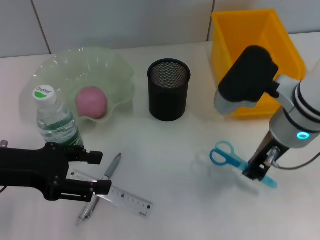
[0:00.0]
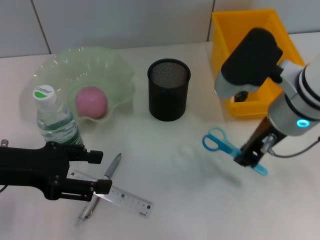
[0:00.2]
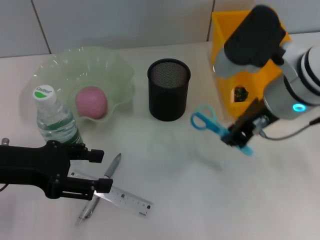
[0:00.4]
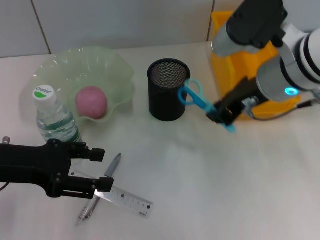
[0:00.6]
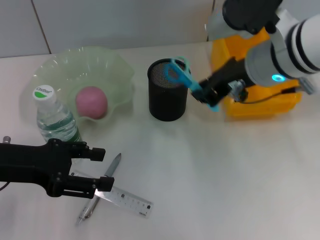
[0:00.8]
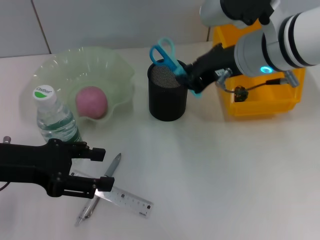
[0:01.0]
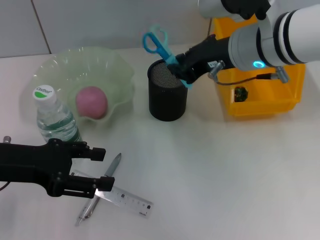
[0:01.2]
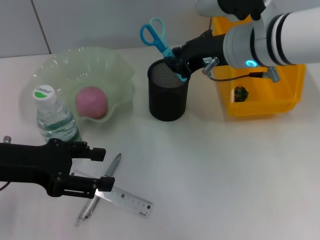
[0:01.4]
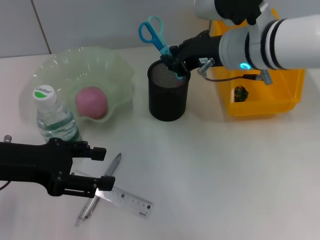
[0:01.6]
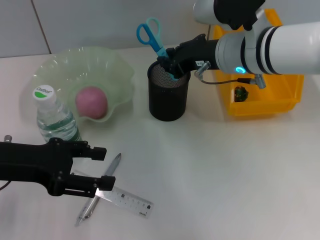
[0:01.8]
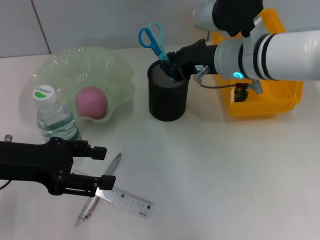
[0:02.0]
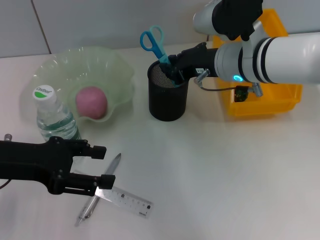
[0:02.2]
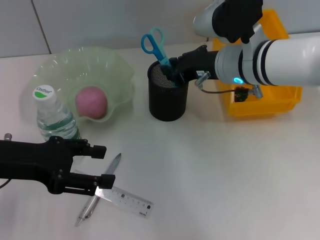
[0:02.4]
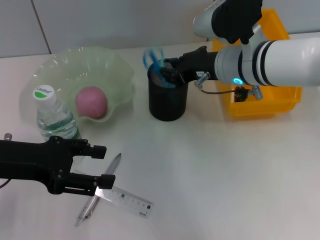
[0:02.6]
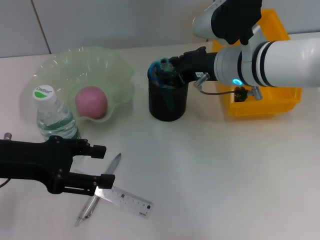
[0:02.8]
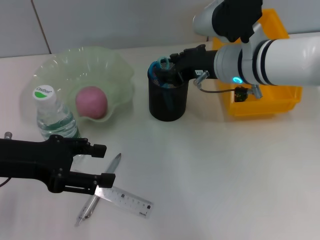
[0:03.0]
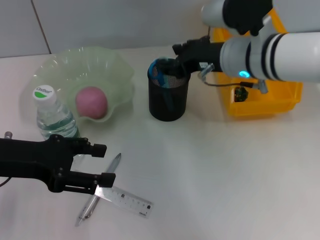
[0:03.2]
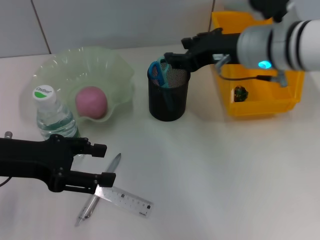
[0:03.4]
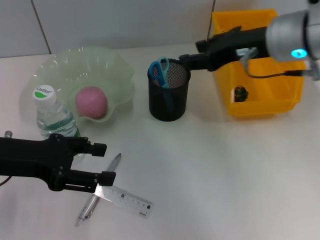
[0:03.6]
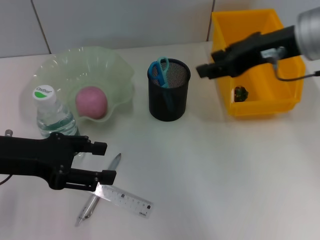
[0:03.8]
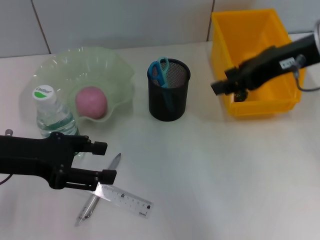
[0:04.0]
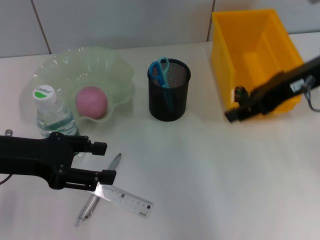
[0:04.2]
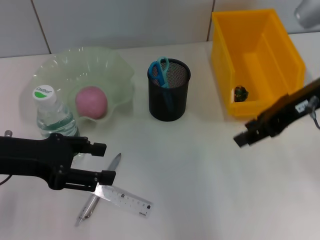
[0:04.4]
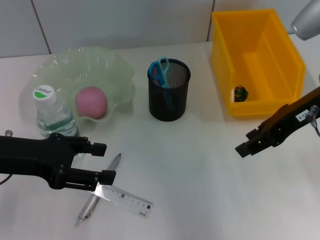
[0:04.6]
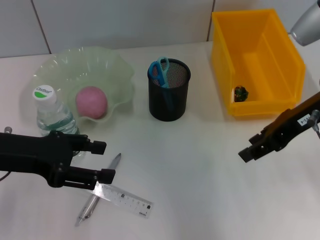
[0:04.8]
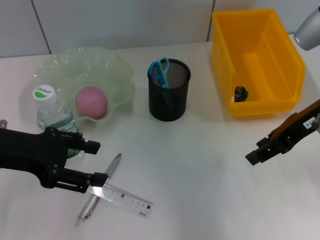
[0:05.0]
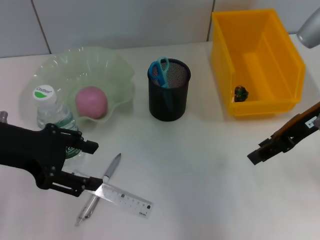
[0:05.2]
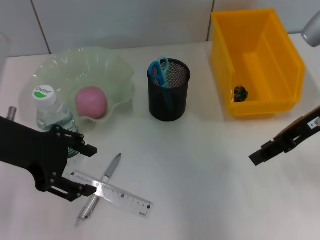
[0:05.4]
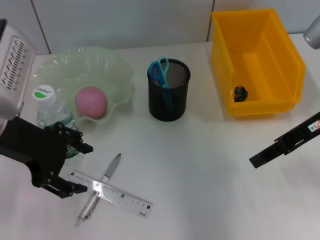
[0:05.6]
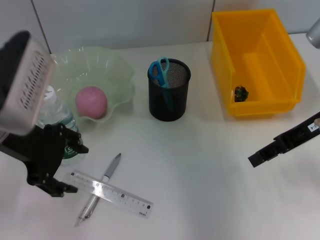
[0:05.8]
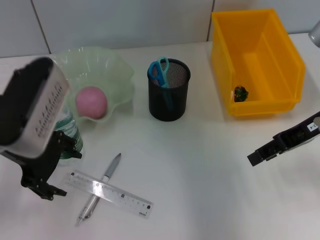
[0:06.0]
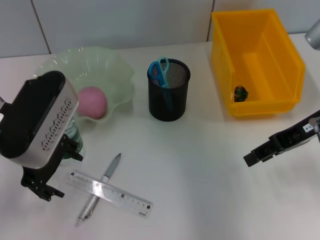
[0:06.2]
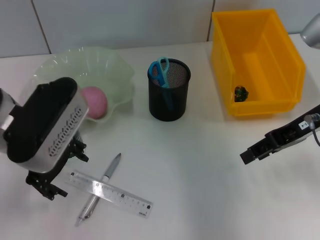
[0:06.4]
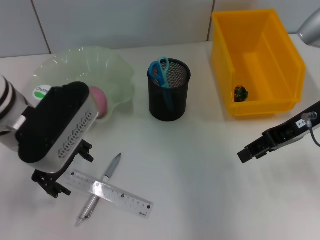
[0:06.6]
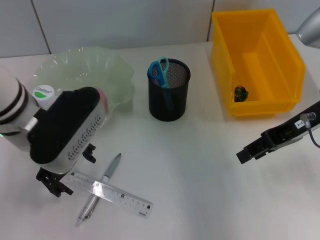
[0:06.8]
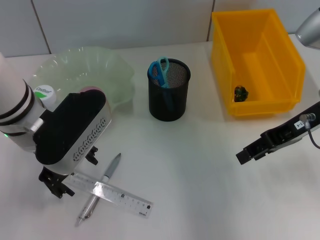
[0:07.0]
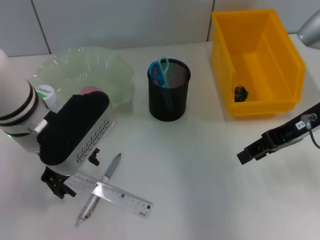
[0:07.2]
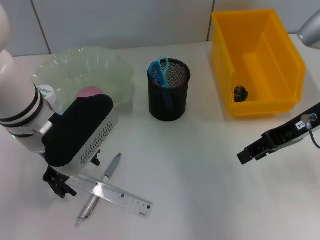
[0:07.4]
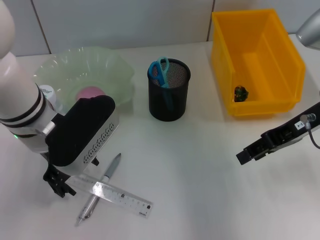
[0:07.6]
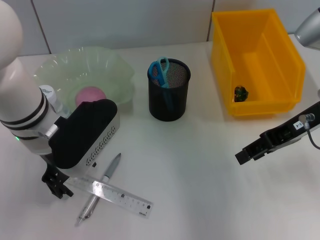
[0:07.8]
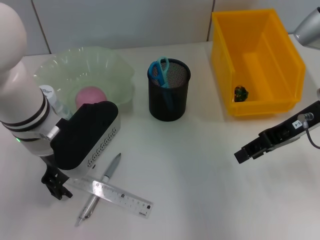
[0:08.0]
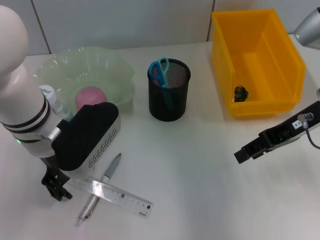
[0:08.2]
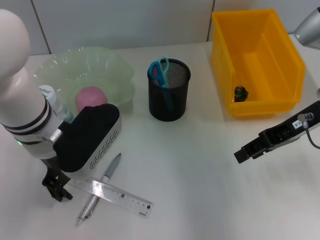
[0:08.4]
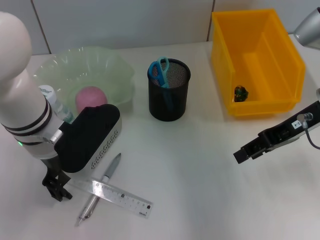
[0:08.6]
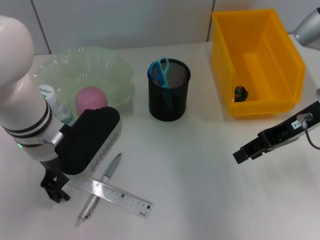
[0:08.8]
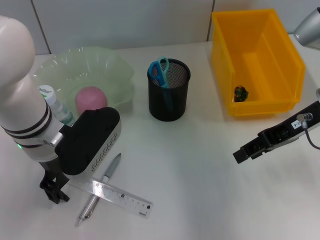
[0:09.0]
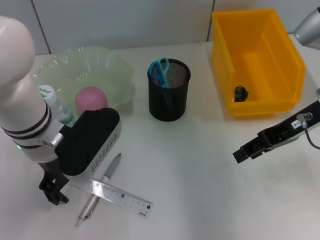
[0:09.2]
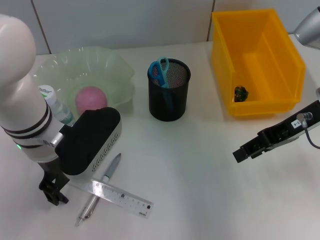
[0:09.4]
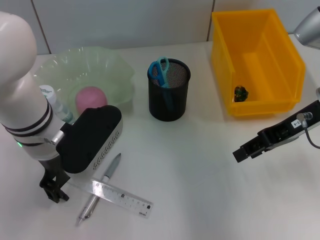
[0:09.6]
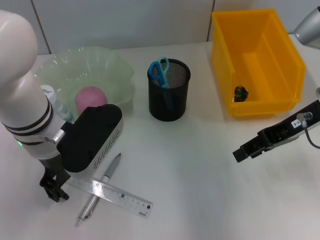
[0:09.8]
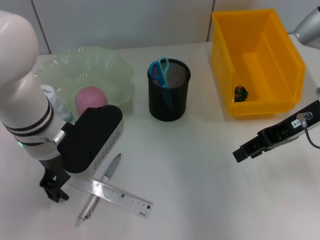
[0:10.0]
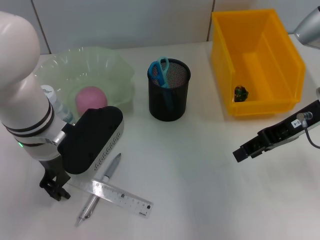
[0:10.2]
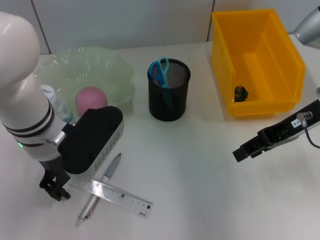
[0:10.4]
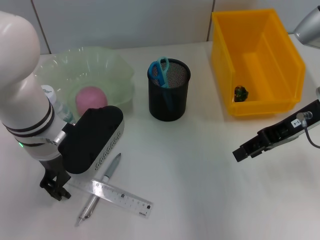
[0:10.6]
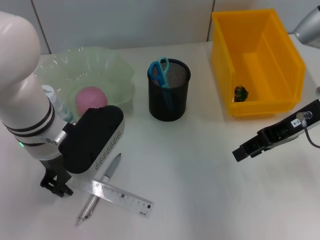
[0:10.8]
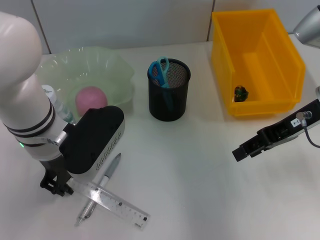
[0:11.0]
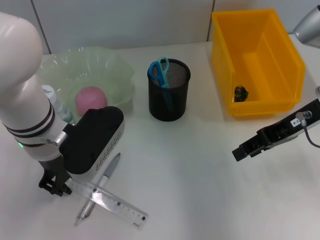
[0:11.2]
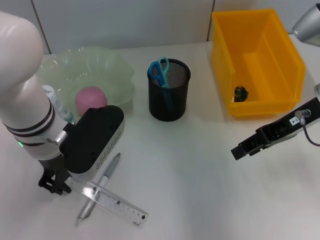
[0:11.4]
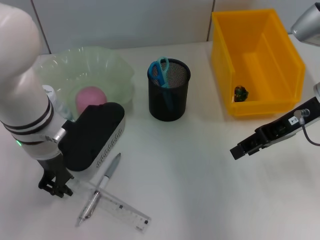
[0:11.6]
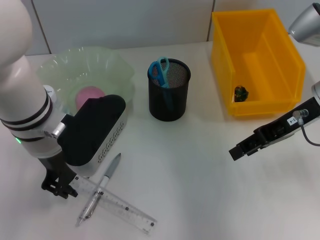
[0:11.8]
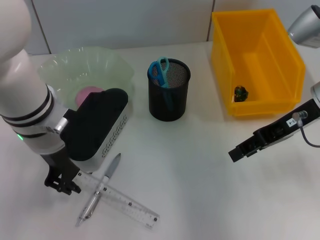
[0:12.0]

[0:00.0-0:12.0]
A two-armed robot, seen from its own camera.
Step, 0:00.8 to 0:03.4: Place the blue scissors into the pen holder with the right hand.
0:00.0 to 0:01.6: The right gripper goes approximately 5 cm forward.
0:01.6 to 0:03.0: The grippers stay close to where they were, moving slightly.
0:03.0 to 0:04.4: The right gripper is displaced to the right, upward and backward by about 15 cm.
0:04.4 to 0:06.0: The left gripper heads to the right, covering some 5 cm, while the right gripper changes place by roughly 5 cm.
0:06.0 to 0:07.6: The left gripper is displaced to the right by some 5 cm.
0:07.6 to 0:09.0: The grippers make only small movements.
0:09.0 to 0:10.4: Both grippers stay put.
0:10.4 to 0:12.0: The left gripper closes its fingers.

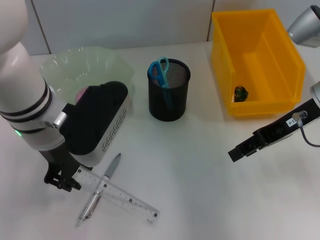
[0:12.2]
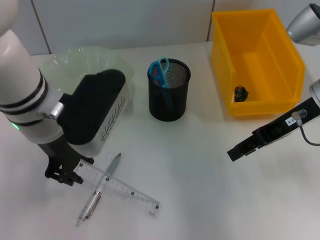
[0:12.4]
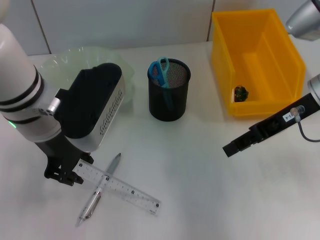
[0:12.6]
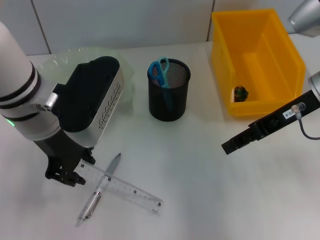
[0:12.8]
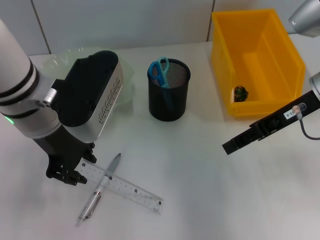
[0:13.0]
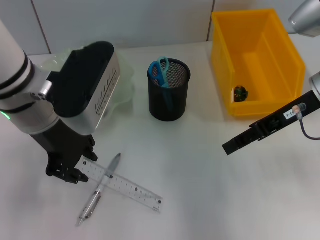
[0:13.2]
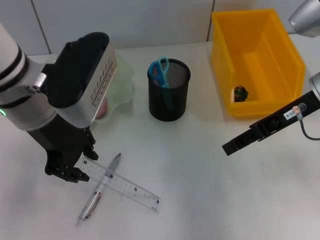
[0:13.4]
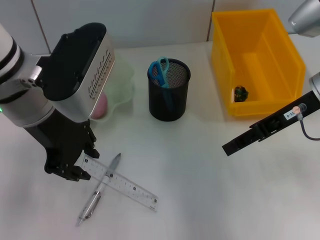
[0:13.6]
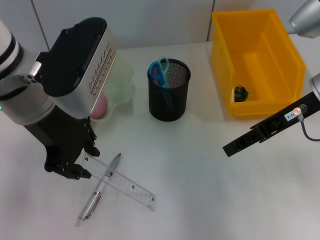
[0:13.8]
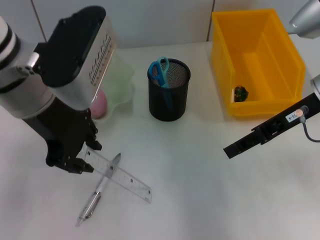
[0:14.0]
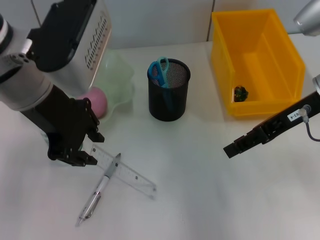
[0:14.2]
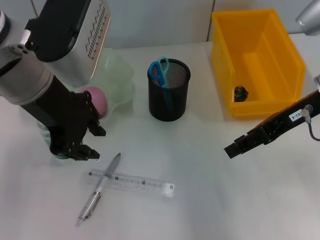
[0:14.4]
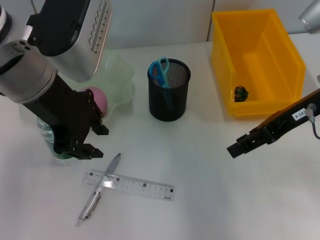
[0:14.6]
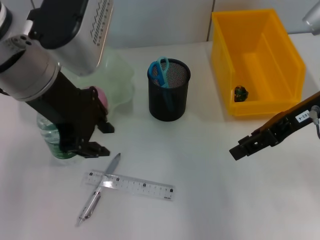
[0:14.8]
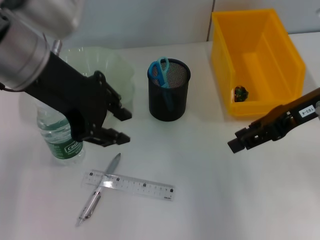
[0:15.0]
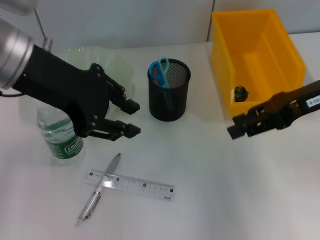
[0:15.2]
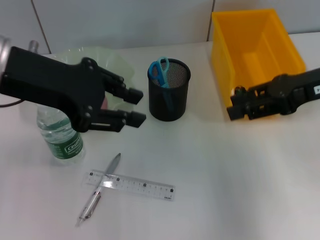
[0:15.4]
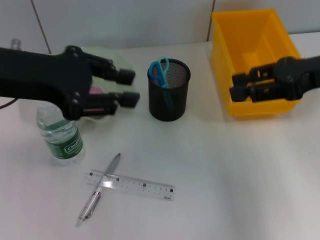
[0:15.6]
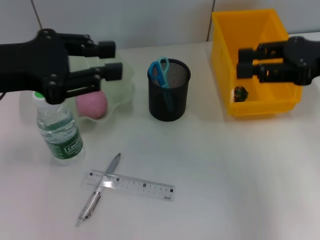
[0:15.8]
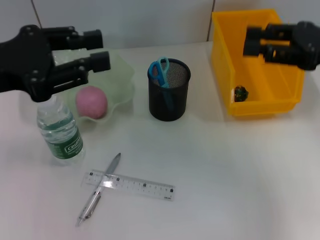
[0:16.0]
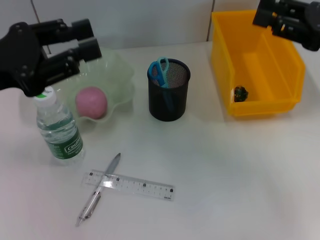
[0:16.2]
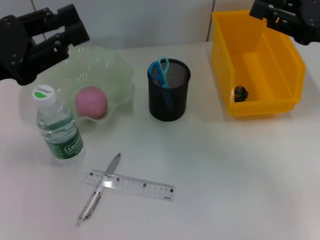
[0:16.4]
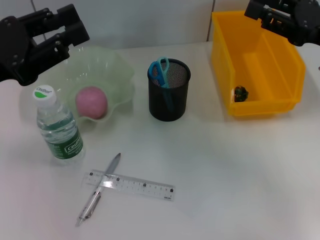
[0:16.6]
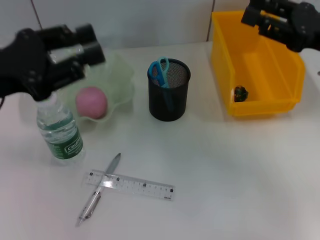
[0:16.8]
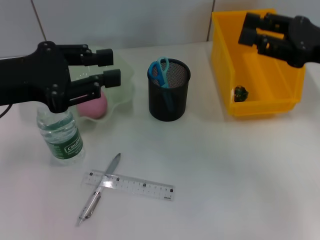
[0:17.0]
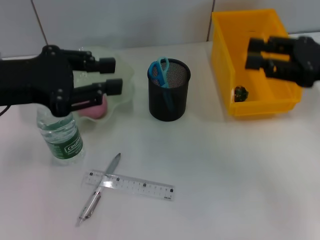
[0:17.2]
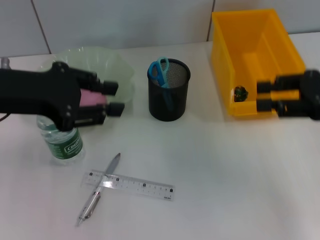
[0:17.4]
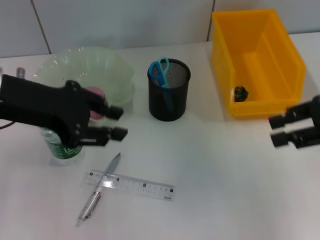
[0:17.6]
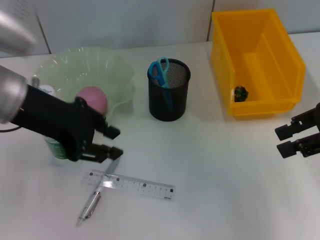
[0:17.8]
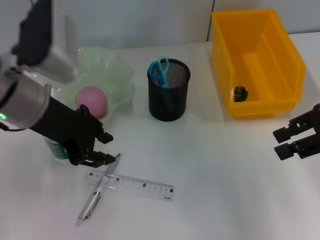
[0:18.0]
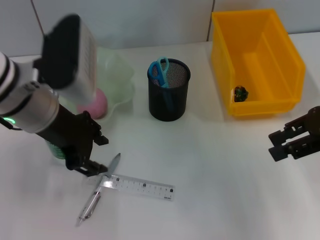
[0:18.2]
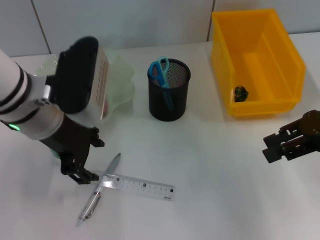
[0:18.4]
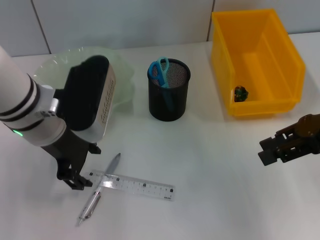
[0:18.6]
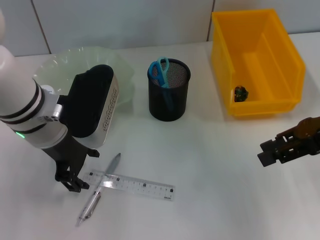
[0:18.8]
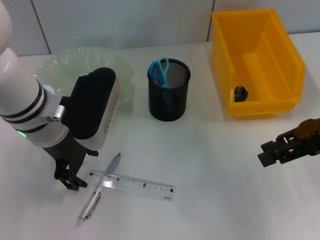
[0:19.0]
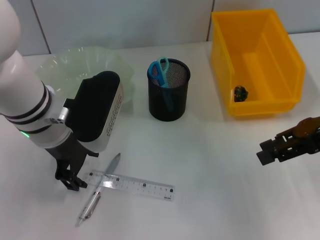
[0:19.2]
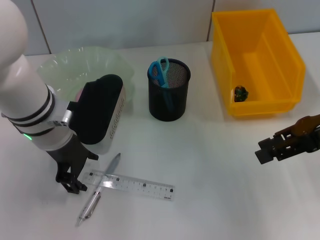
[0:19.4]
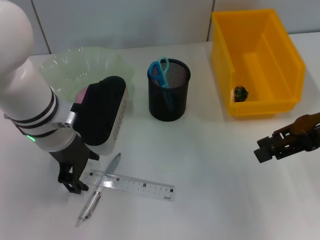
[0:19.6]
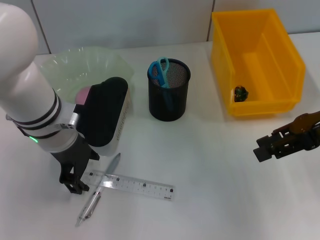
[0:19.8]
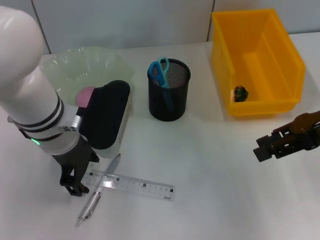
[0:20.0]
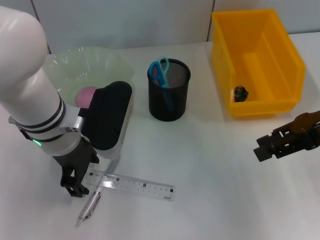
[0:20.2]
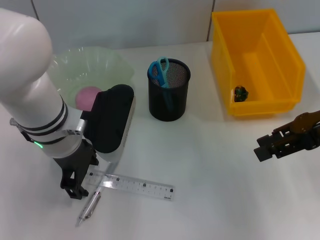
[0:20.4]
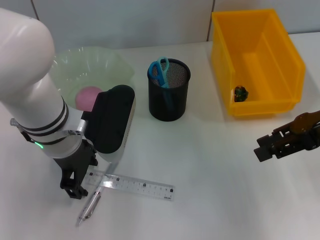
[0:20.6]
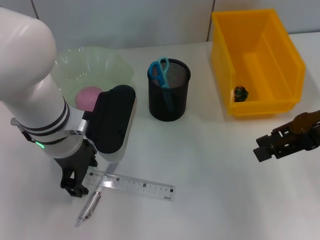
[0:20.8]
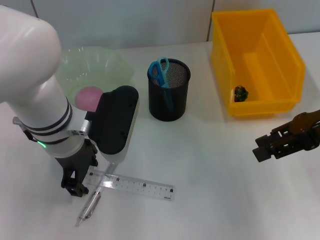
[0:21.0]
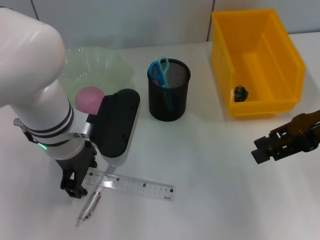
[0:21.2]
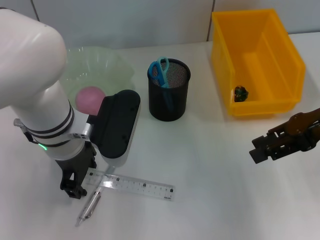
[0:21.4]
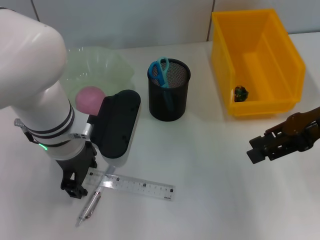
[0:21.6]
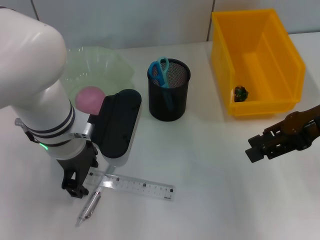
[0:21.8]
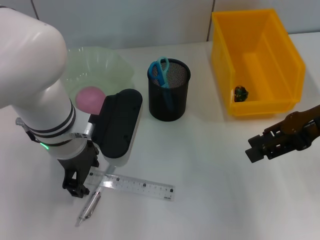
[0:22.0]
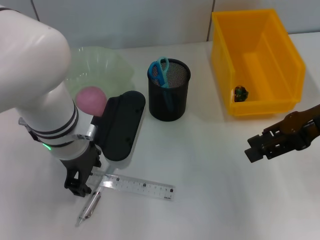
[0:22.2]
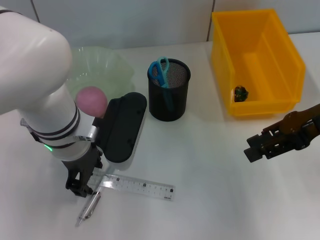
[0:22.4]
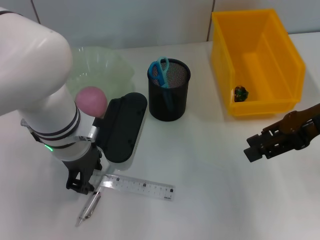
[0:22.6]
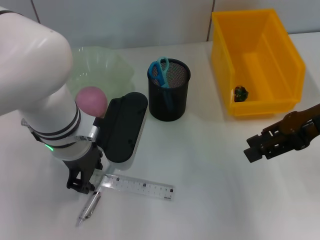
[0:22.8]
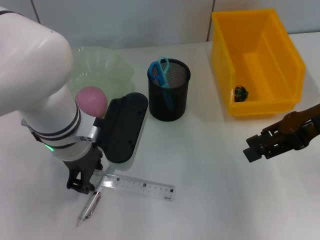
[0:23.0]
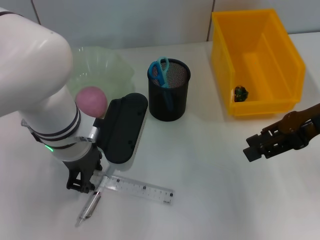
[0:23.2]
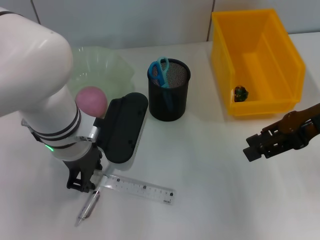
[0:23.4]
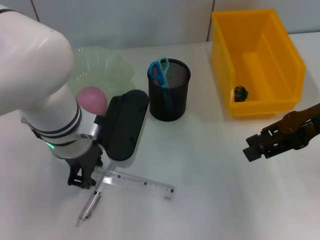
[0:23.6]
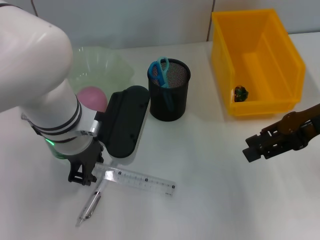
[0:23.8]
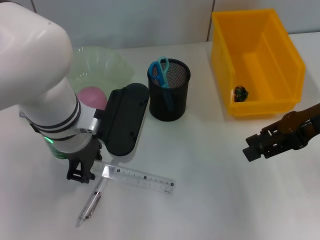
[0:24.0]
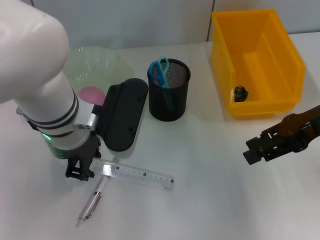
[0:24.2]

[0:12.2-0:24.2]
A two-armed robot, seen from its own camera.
Step, 0:12.2 to 0:24.2: Grab the ruler with the left hand.
0:12.2 to 0:13.8: The left gripper moves upward, approximately 5 cm.
0:13.8 to 0:15.2: The left gripper moves about 5 cm.
0:15.2 to 0:16.6: The left gripper moves to the left and downward, some 15 cm.
0:16.6 to 0:18.2: The left gripper moves to the right, roughly 10 cm.
0:18.2 to 0:19.8: The left gripper ends up approximately 5 cm from where it was, and opens its fingers.
0:19.8 to 0:21.2: The grippers move only a little.
0:21.2 to 0:22.6: Both grippers stay put.
0:22.6 to 0:24.2: There are only small adjustments of the grippers.
